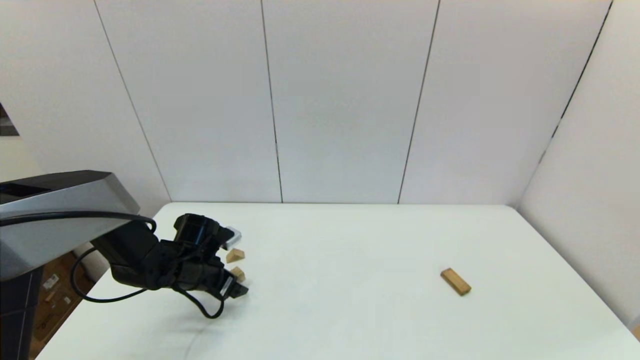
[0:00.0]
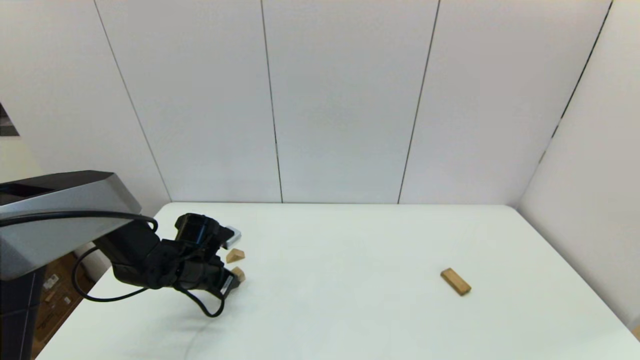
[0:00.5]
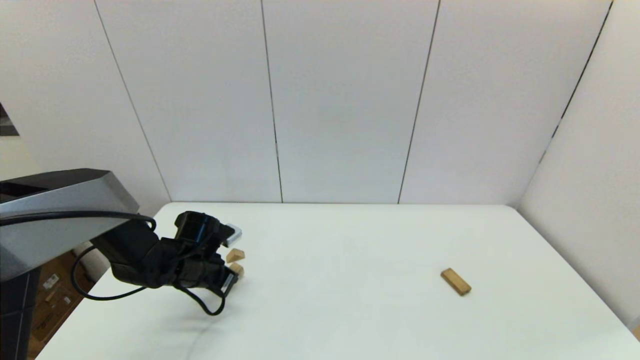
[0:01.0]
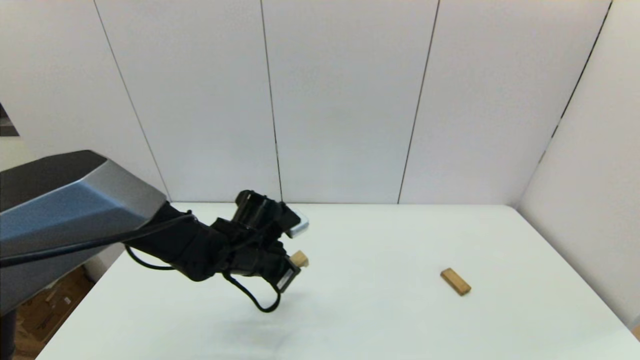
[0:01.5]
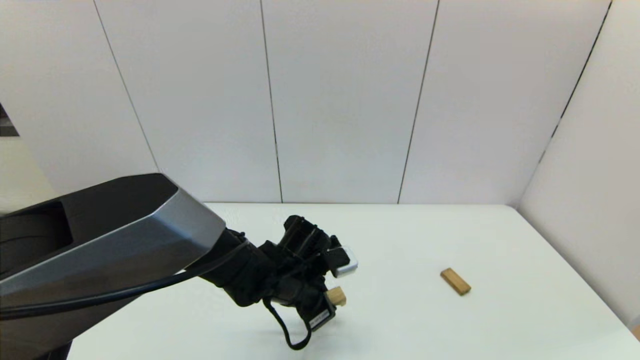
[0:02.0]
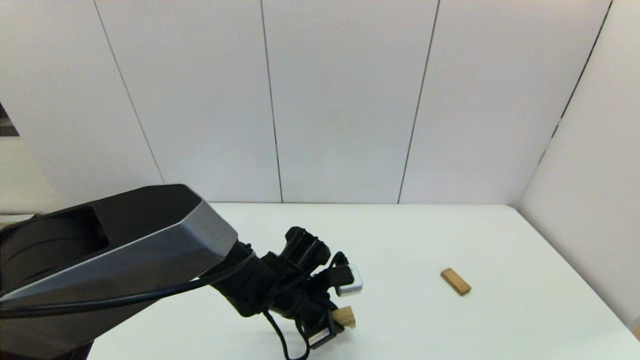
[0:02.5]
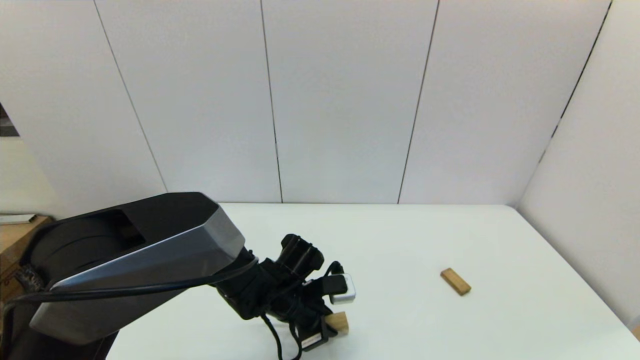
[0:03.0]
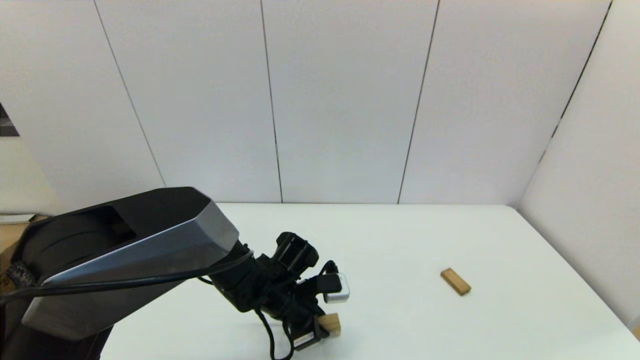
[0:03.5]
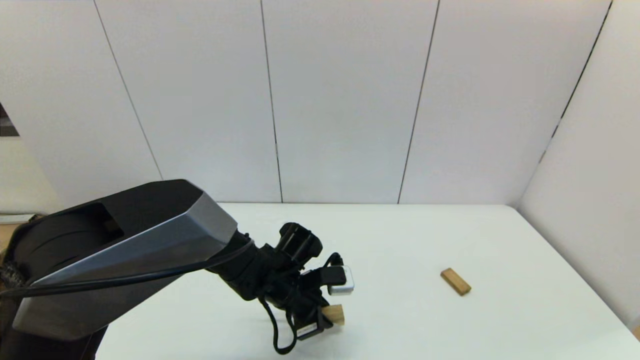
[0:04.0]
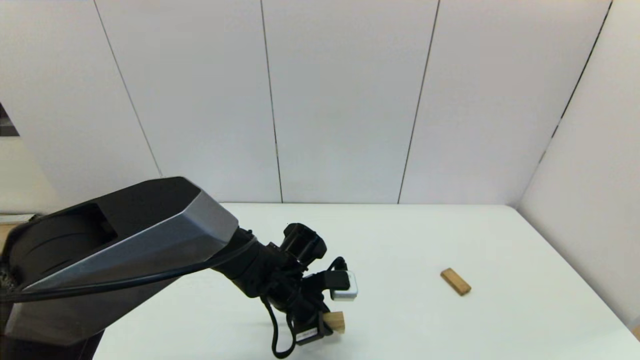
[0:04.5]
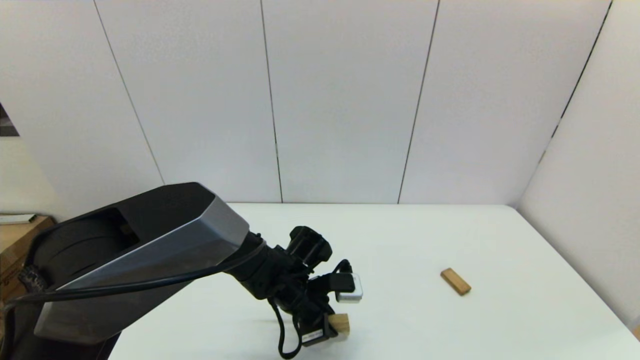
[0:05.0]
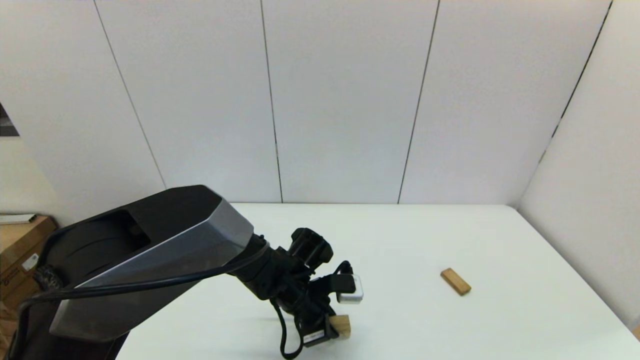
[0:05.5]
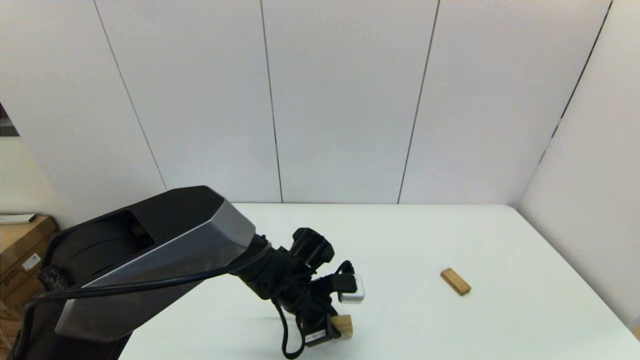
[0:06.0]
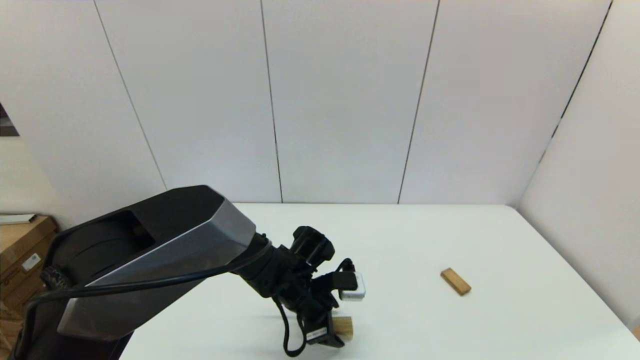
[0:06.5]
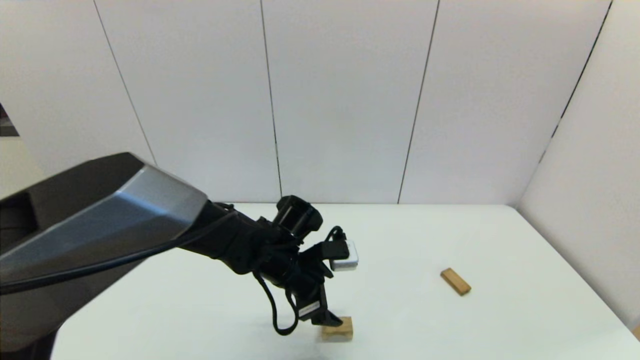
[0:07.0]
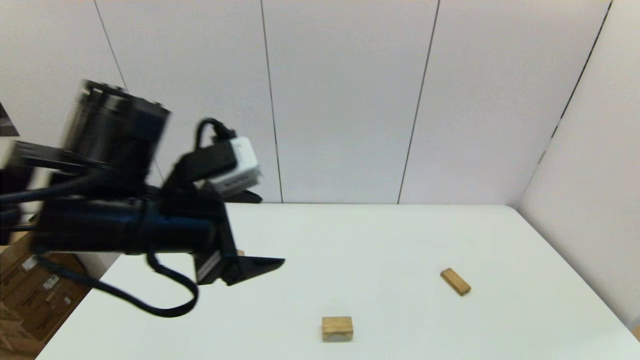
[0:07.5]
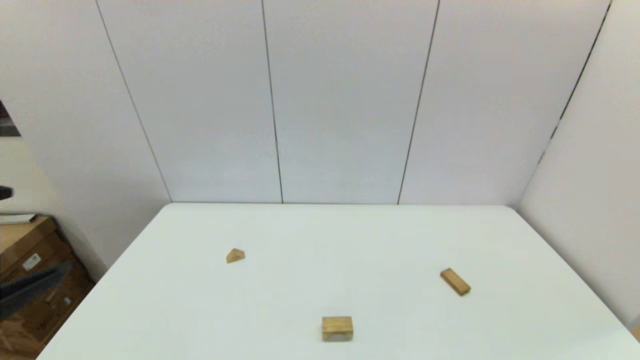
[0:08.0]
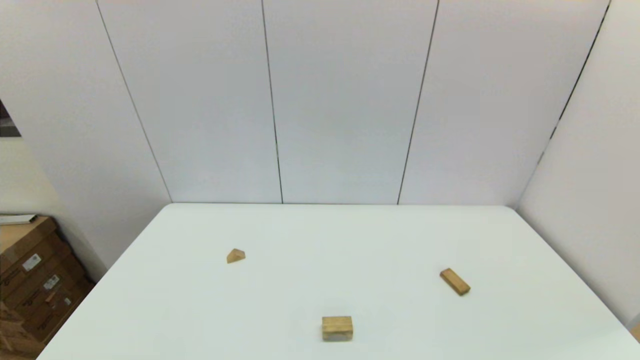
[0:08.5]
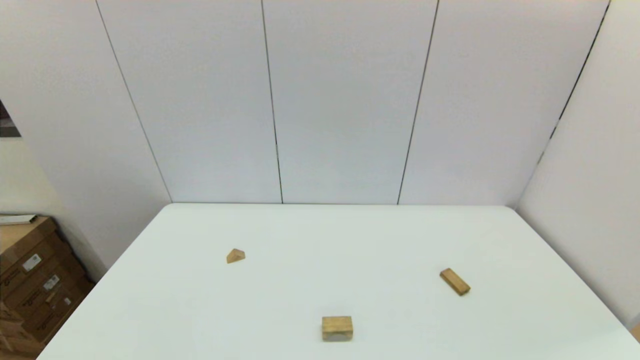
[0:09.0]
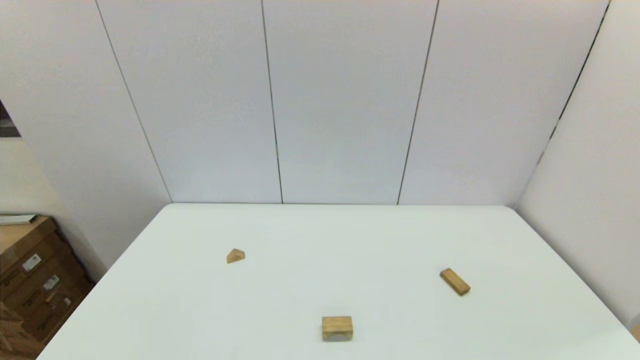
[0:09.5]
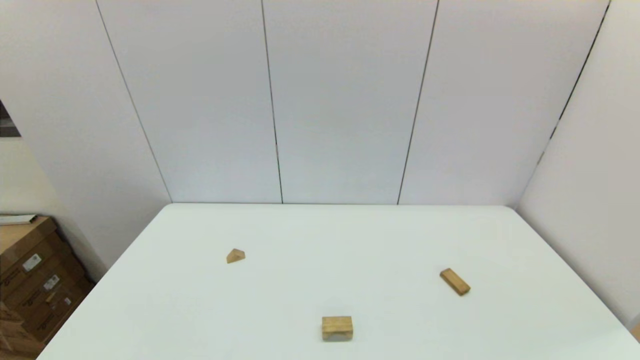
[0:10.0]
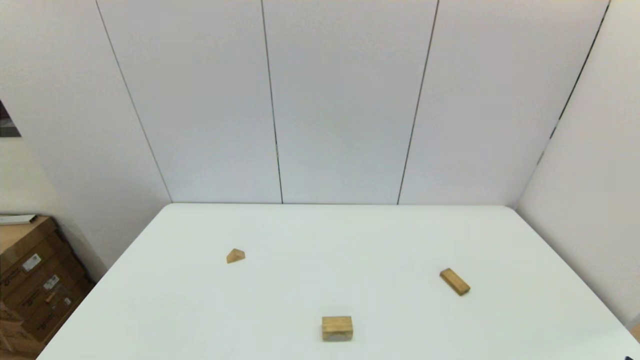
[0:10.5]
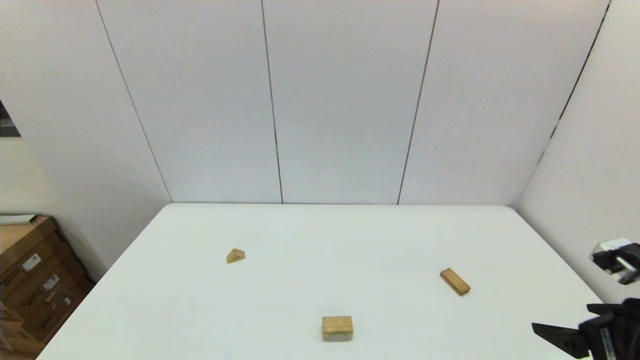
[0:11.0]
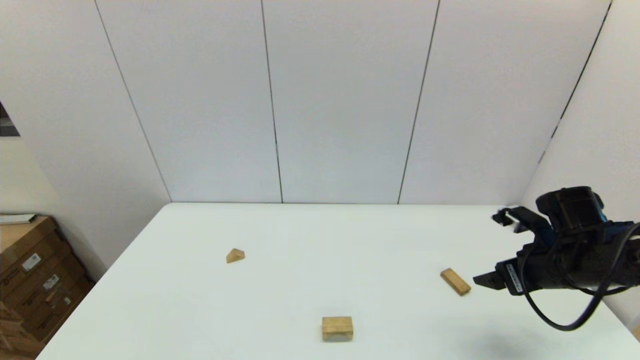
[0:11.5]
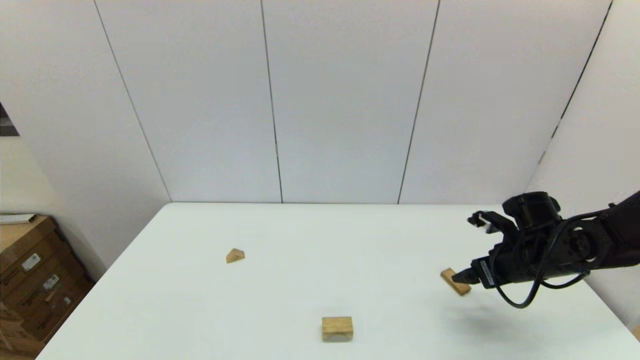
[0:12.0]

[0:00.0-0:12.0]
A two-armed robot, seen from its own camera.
Task of the whole recording: place the arched building blocks in the center of the table, set up the rectangular building blocks, and then set up the triangular building blocks.
Step, 0:01.0 to 0:06.0: Place the arch-shaped block in the center of view with the left gripper.
0:00.0 to 0:02.0: The left gripper is displaced to the right by approximately 20 cm, and closes.
0:02.0 to 0:06.0: The grippers make only small movements.
0:06.0 to 0:08.0: The left gripper travels upward, backward and to the left by some 50 cm, and opens up.
0:10.0 to 0:12.0: The right gripper heads forward, covering roughly 35 cm.

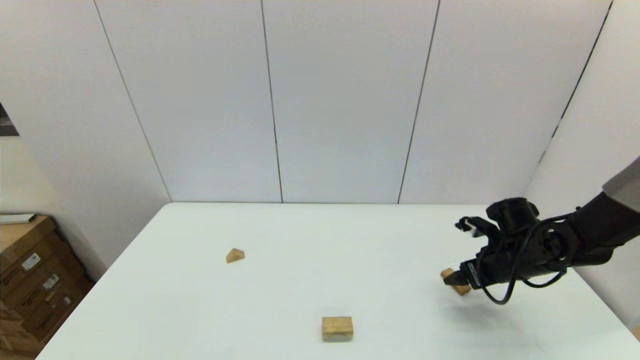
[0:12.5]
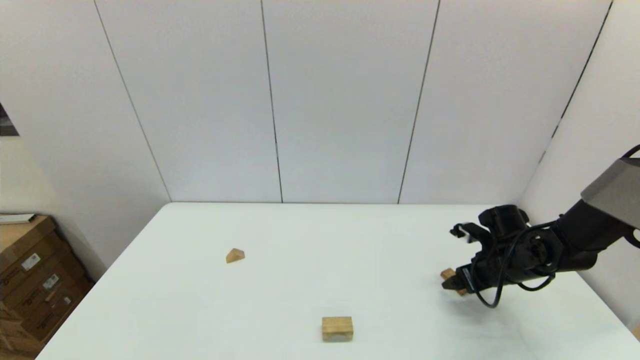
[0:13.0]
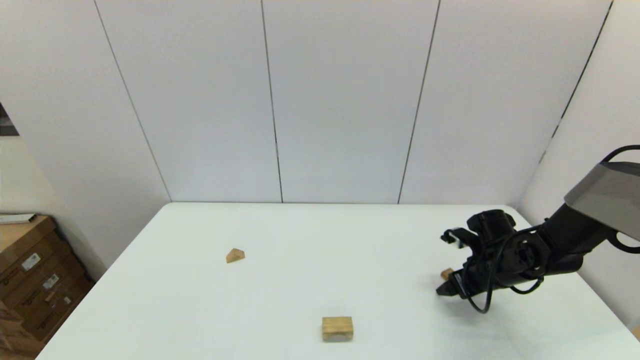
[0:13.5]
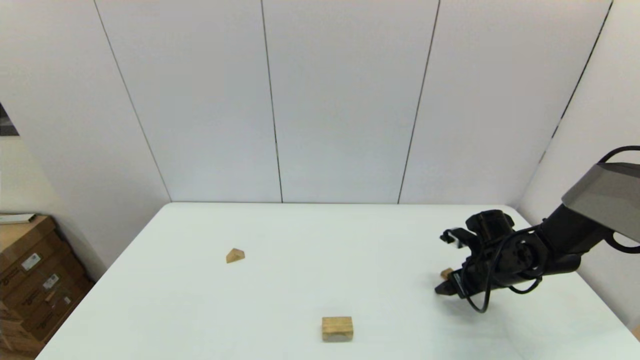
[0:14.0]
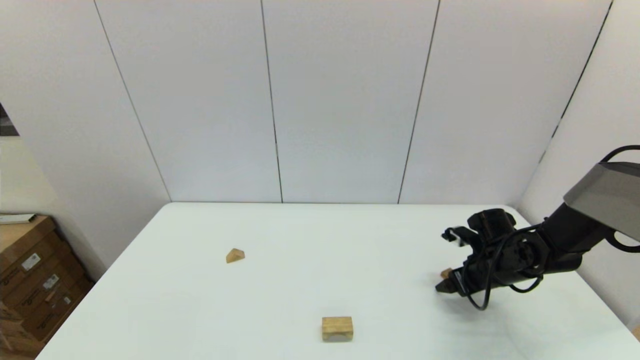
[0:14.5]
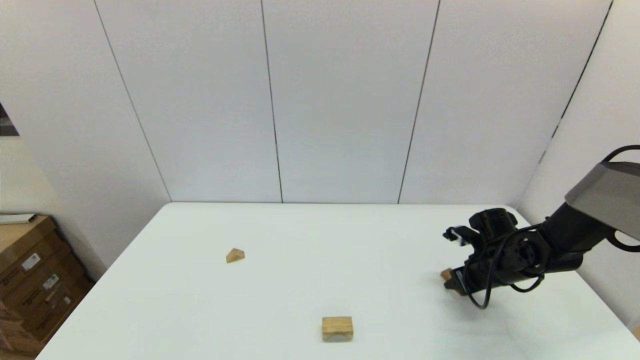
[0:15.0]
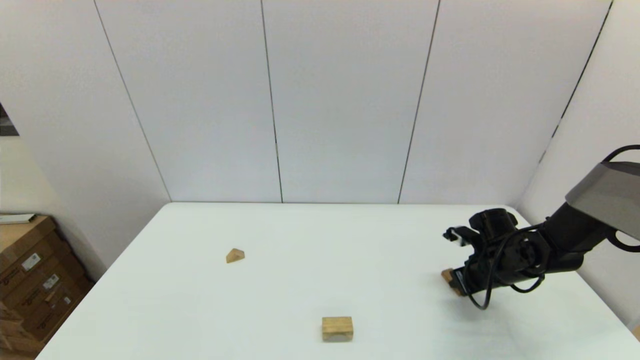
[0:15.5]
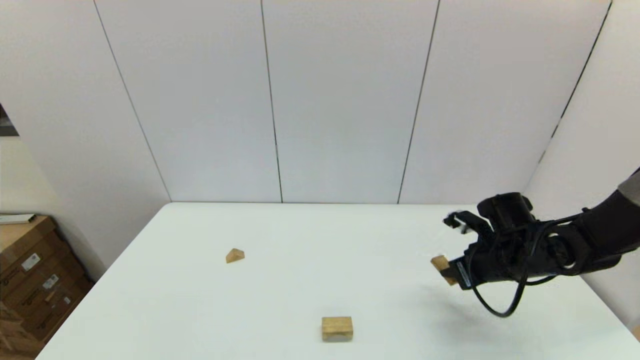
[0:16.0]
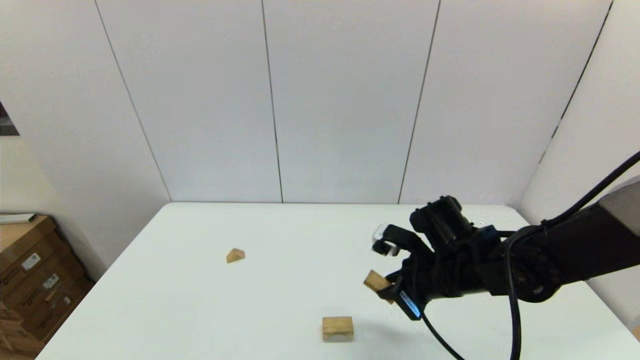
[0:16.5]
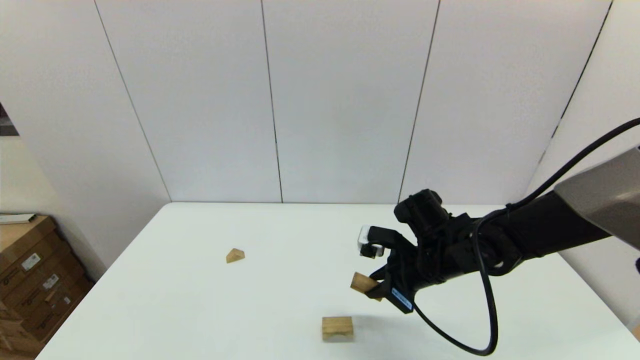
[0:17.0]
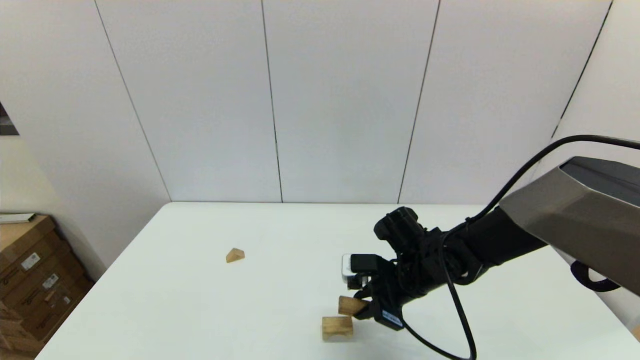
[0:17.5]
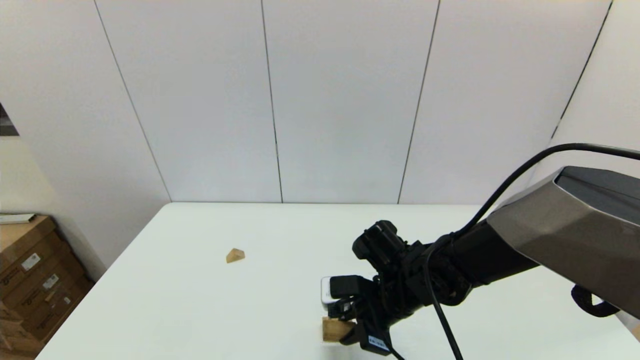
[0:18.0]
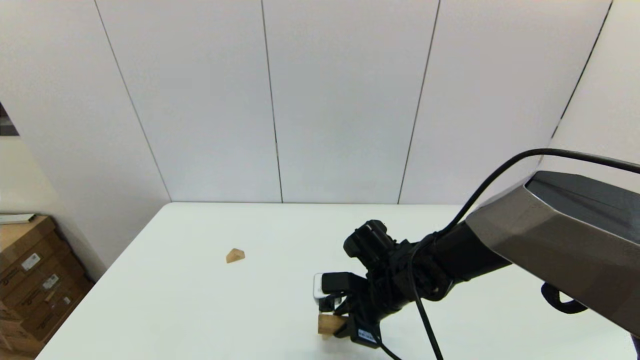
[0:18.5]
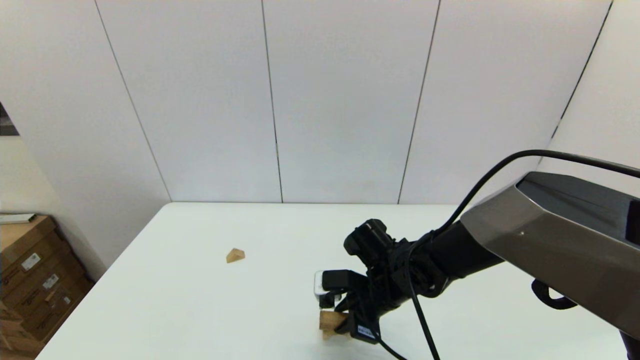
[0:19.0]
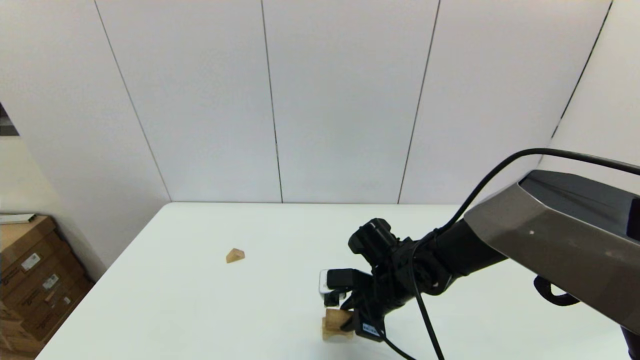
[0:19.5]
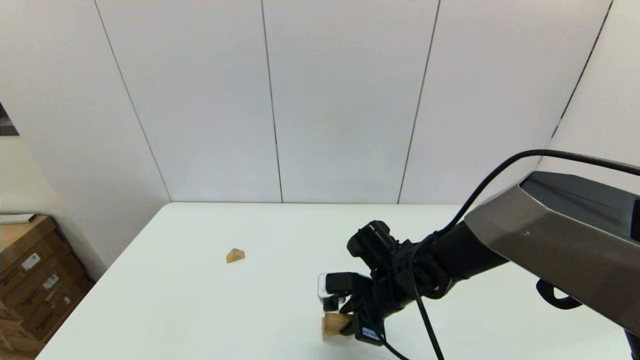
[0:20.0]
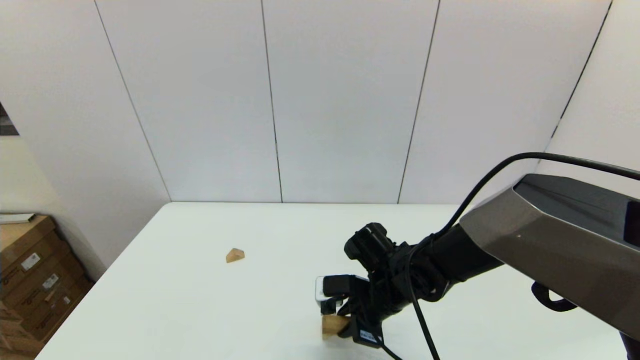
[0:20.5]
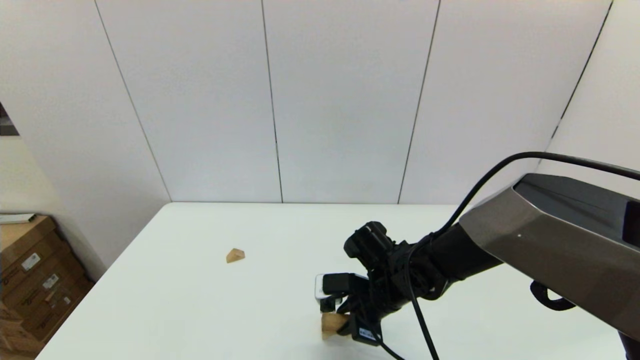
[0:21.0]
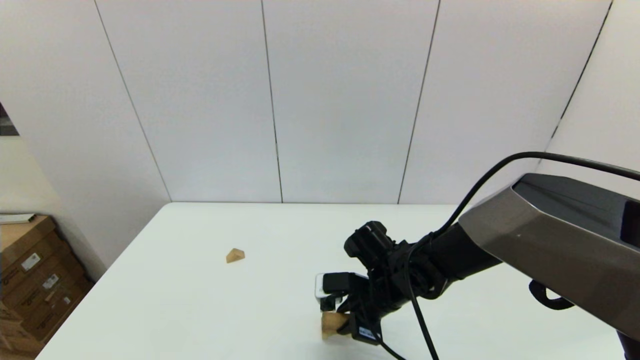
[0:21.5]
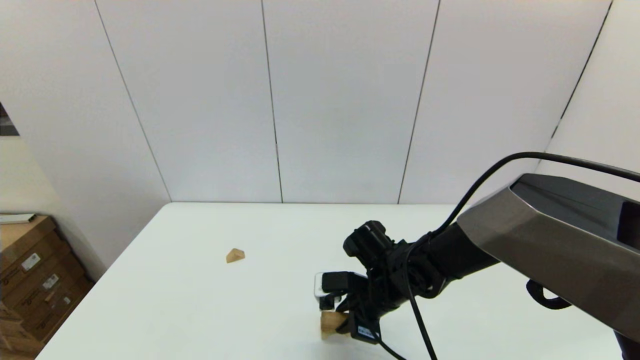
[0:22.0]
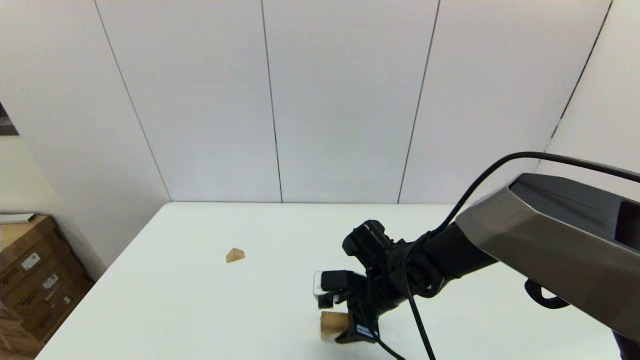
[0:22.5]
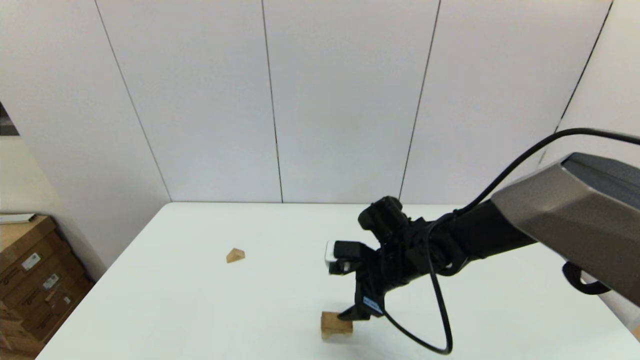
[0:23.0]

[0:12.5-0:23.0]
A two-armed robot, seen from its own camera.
Task of the whole recording: place the arched building blocks in the center of the table, set up the rectangular building blocks, and then set up the triangular building blocks.
Step, 0:12.5 to 0:15.0: Grasp the box-shaped block with the right gripper.
Step, 0:15.5 to 0:22.0: Place the box-shaped block onto the arch-shaped block with the right gripper.
0:12.5 to 0:14.5: There are only small adjustments of the grippers.
0:14.5 to 0:16.5: The right gripper moves to the left, upward and backward, approximately 20 cm, and closes.
0:16.5 to 0:19.0: The right gripper moves to the left and downward, about 10 cm.
0:19.0 to 0:21.0: Both grippers stay about where they are.
0:21.0 to 0:23.0: The right gripper opens its fingers.
